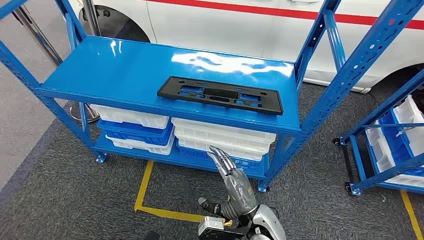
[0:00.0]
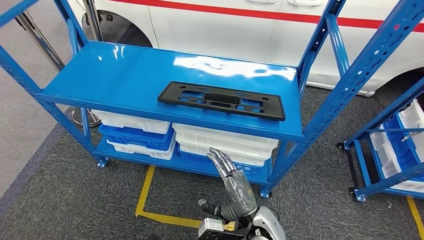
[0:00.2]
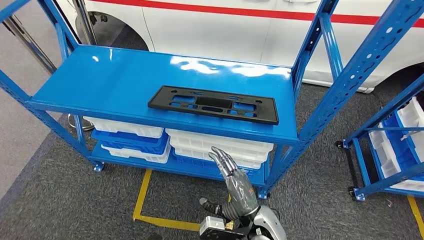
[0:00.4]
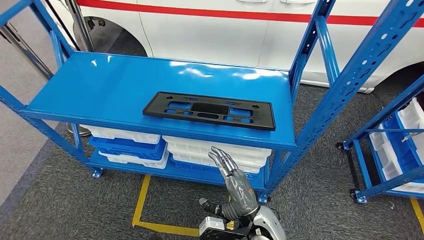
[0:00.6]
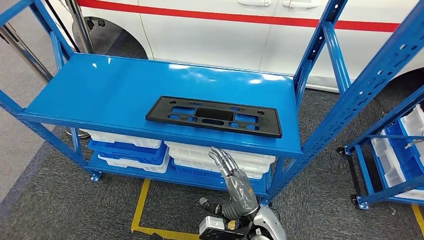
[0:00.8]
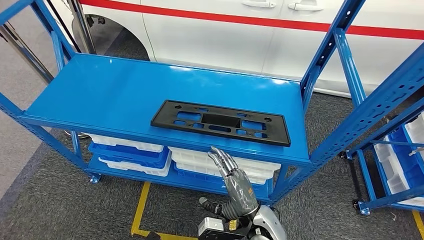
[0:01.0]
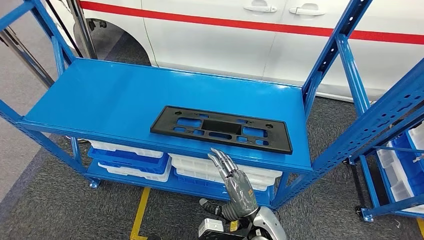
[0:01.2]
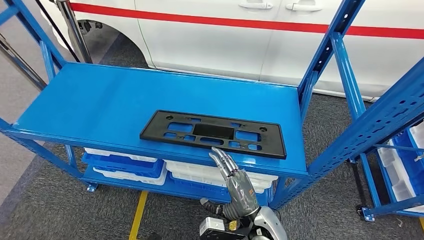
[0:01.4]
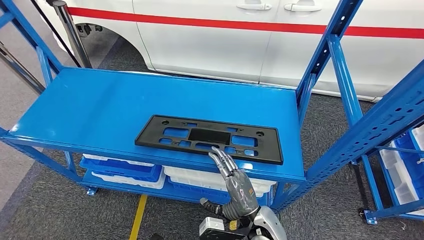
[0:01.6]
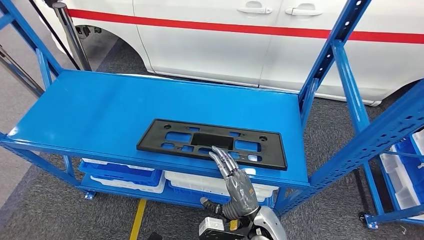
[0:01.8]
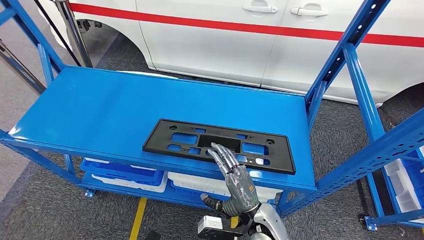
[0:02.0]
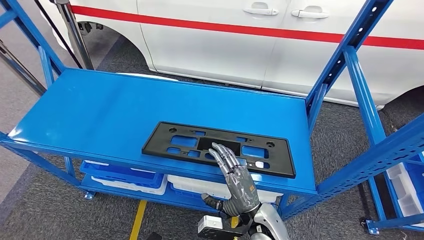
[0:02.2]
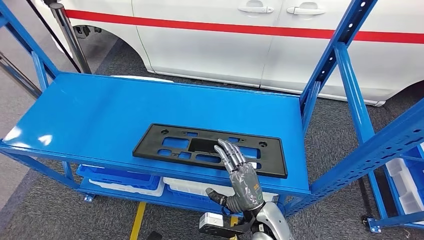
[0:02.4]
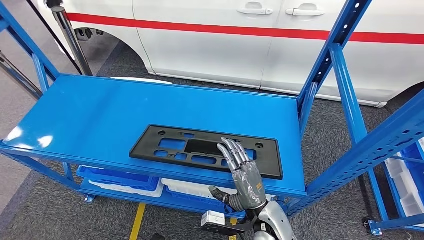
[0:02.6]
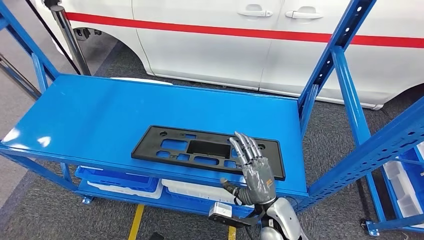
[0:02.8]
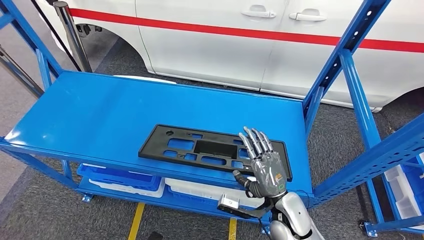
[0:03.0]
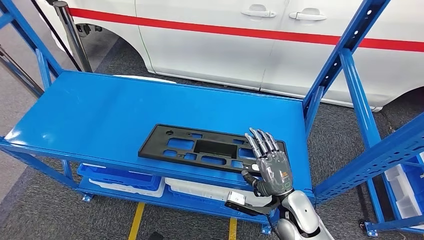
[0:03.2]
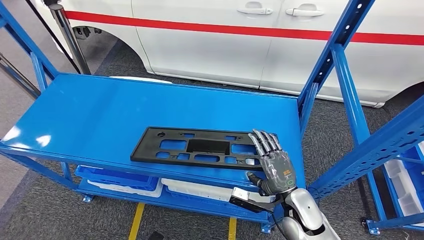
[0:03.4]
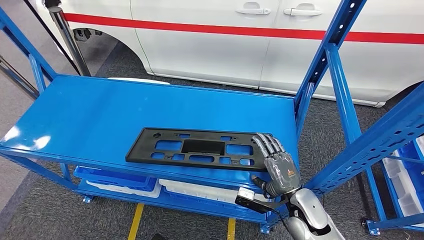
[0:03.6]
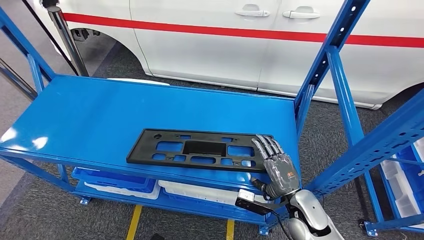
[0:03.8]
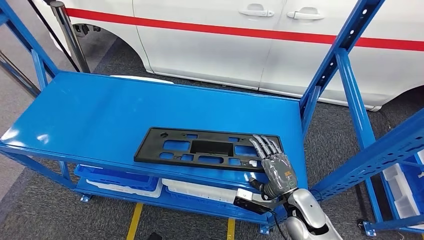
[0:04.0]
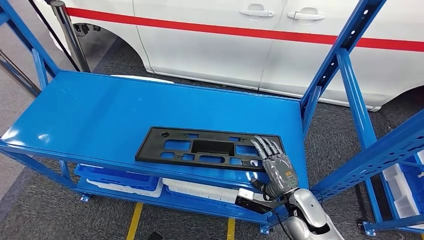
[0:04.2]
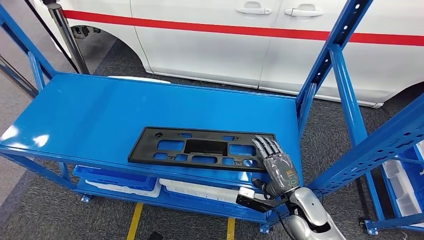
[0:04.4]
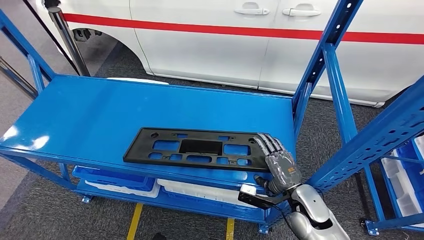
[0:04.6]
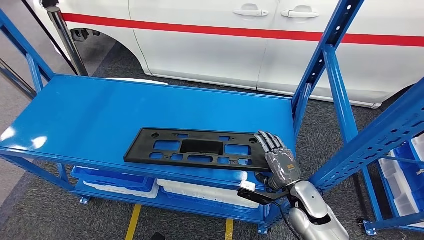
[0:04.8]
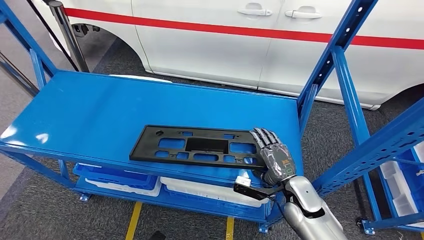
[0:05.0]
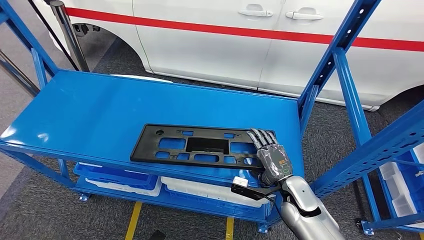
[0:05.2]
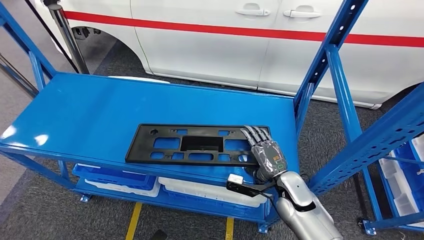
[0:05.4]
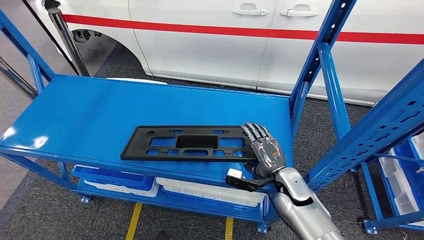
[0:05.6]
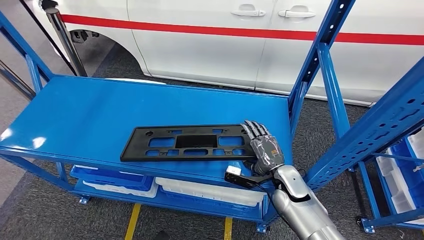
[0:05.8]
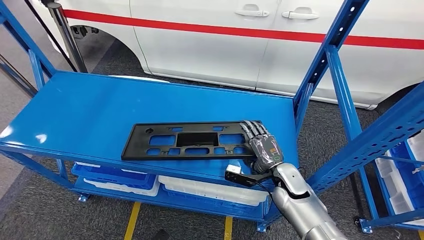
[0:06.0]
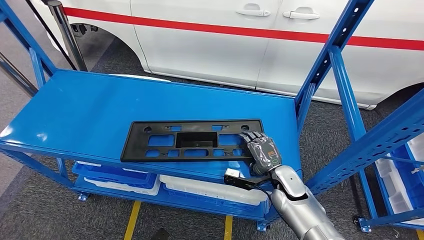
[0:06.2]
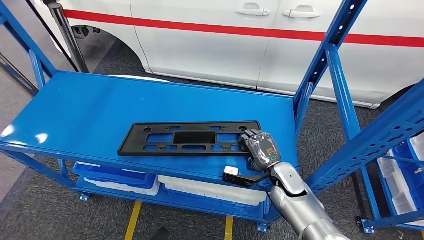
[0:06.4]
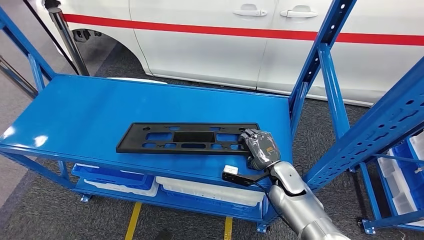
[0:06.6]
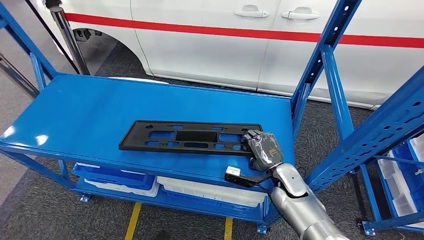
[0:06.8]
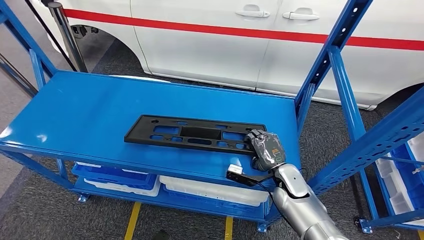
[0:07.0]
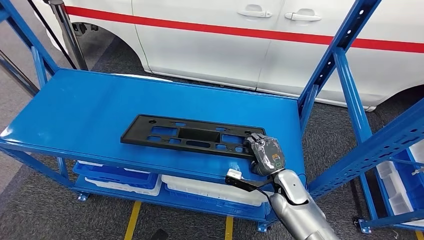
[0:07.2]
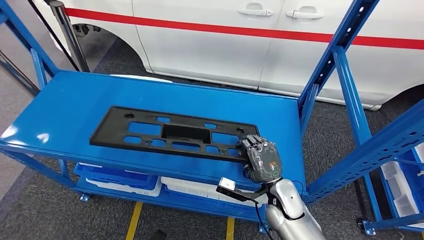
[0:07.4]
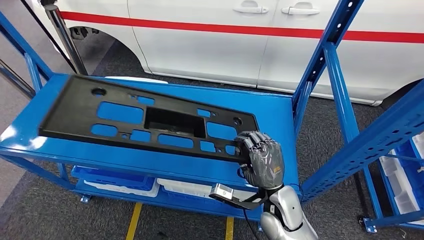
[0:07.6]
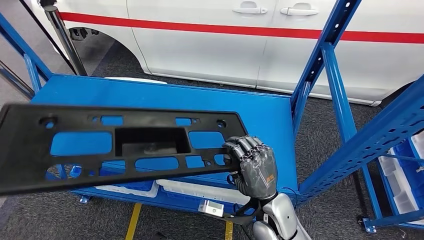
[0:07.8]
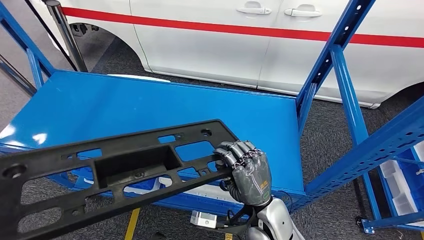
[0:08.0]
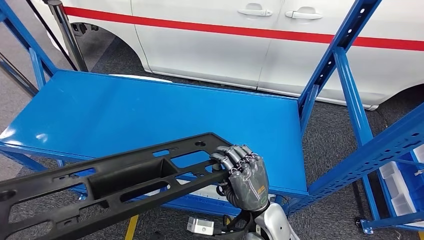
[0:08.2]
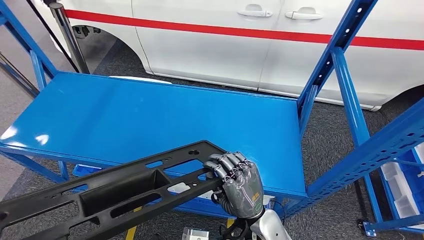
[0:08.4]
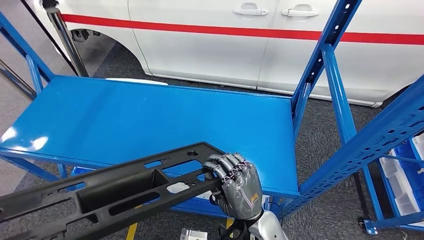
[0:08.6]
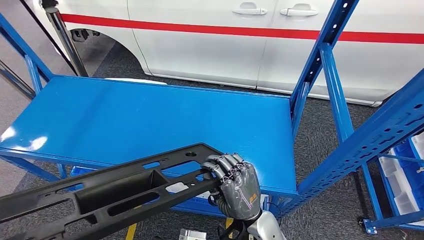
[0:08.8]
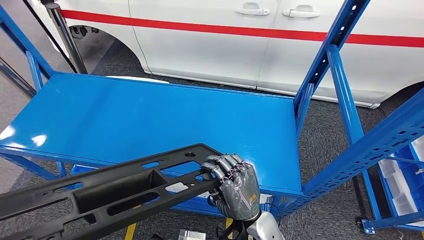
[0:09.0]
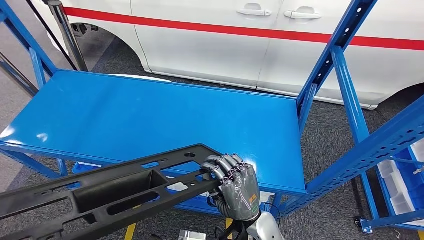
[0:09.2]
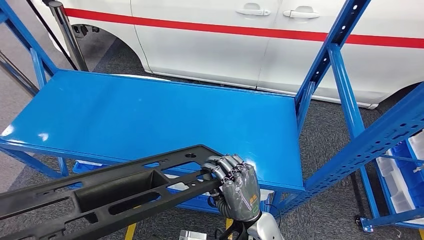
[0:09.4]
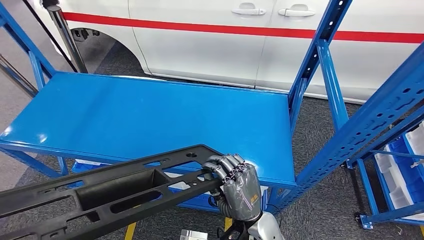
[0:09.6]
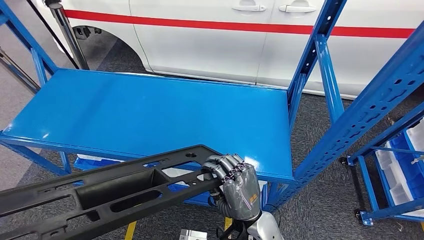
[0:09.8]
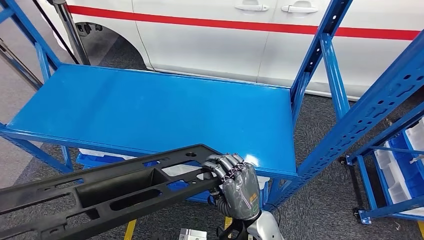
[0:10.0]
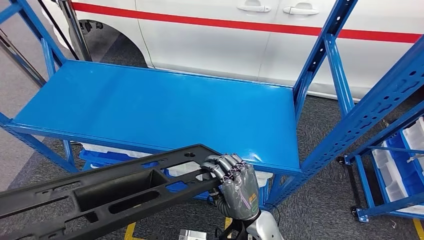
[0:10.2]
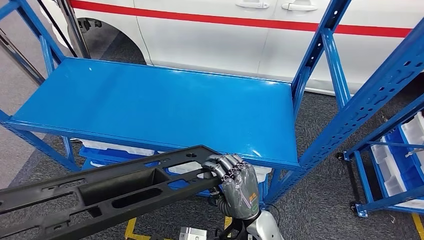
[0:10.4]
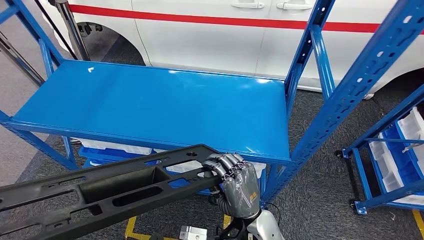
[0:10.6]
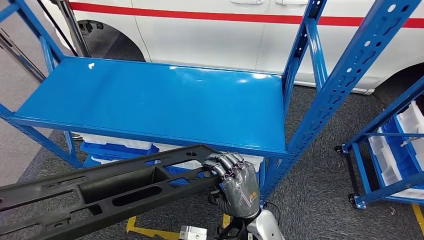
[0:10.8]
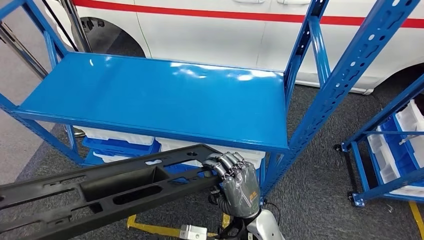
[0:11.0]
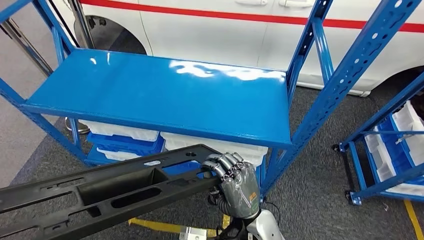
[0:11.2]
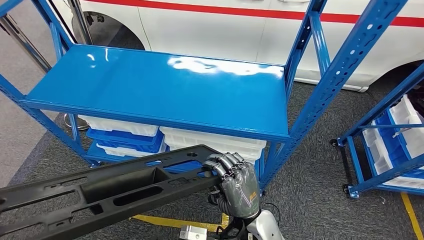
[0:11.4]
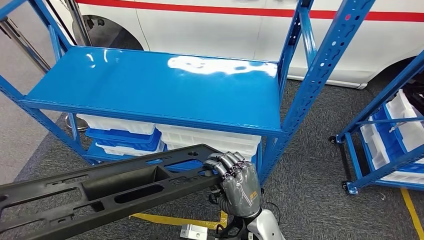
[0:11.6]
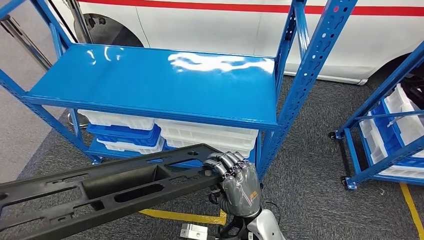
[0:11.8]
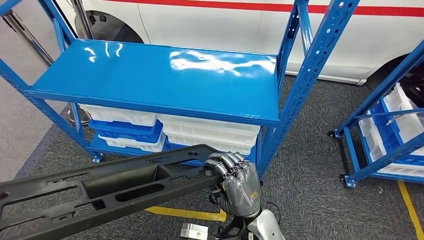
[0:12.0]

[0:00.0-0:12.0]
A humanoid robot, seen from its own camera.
Step, 0:00.0 to 0:11.8: Pick up the large material from the shelf.

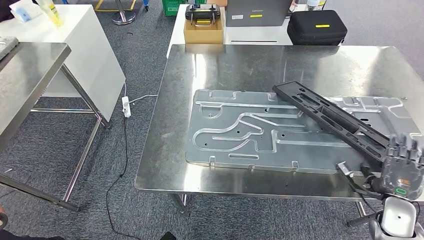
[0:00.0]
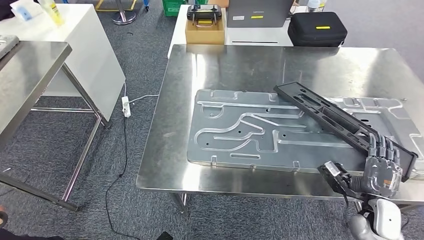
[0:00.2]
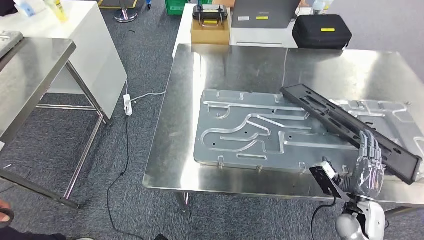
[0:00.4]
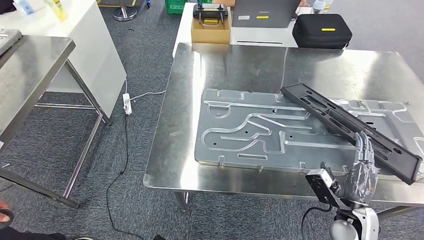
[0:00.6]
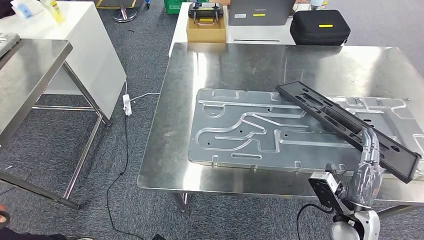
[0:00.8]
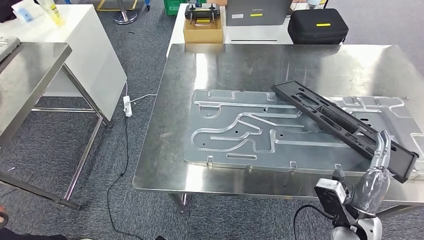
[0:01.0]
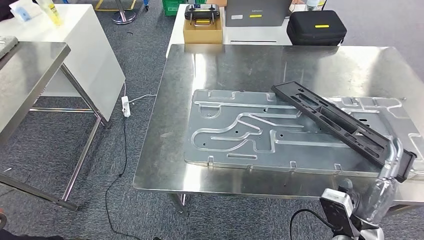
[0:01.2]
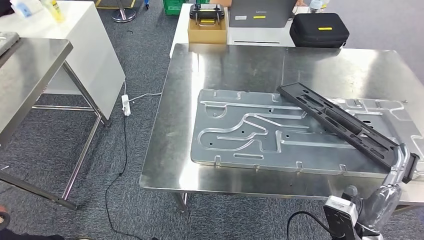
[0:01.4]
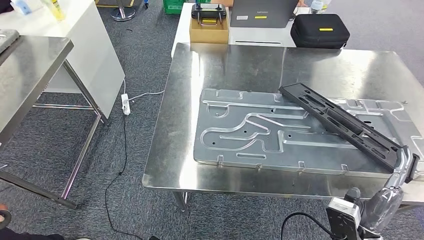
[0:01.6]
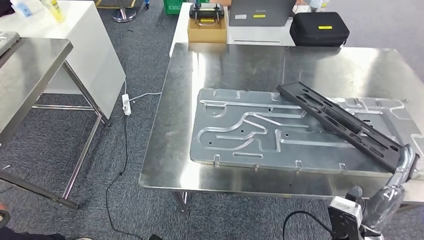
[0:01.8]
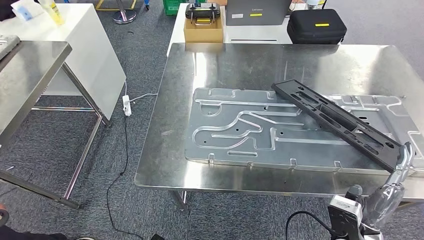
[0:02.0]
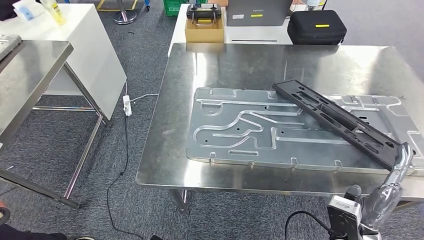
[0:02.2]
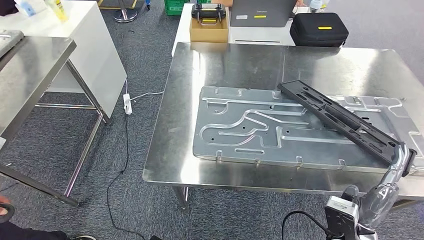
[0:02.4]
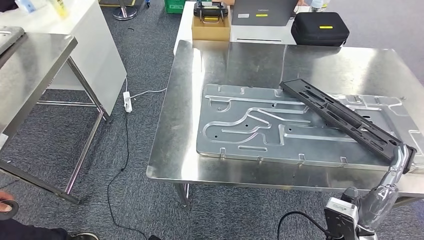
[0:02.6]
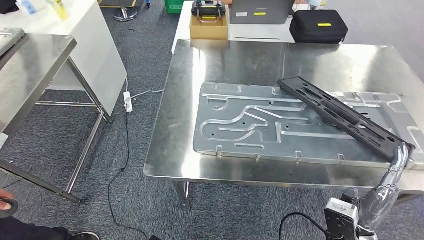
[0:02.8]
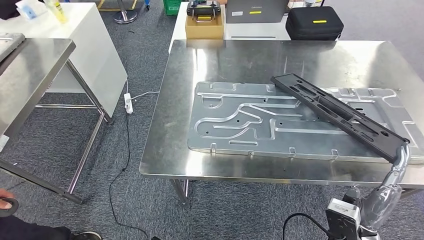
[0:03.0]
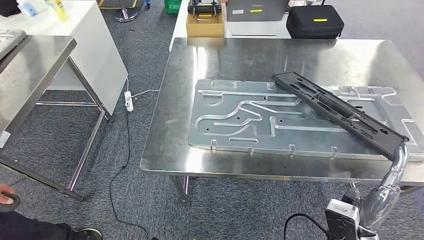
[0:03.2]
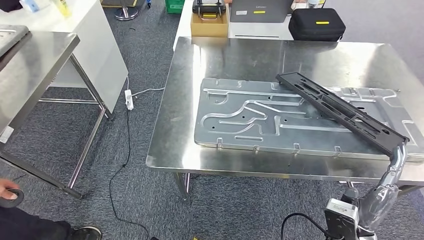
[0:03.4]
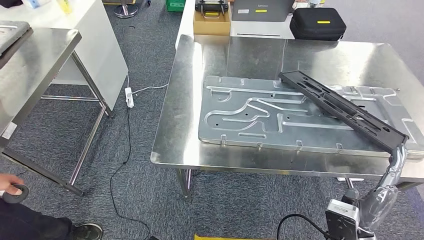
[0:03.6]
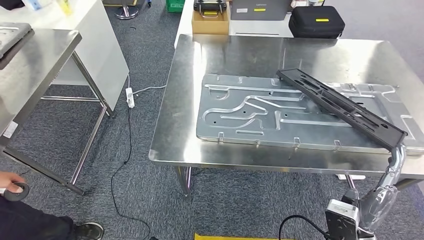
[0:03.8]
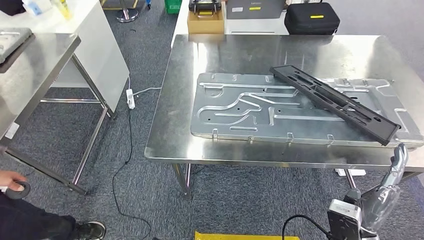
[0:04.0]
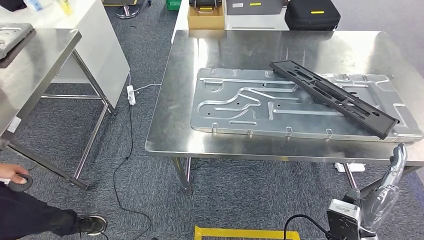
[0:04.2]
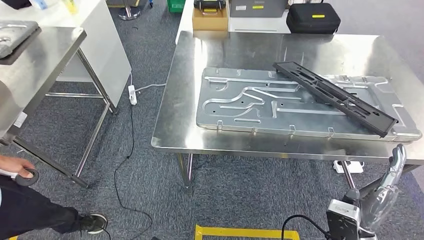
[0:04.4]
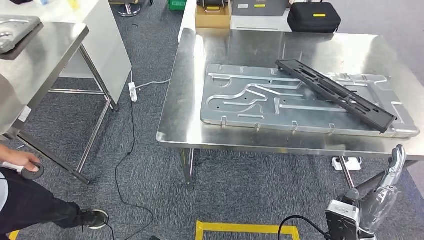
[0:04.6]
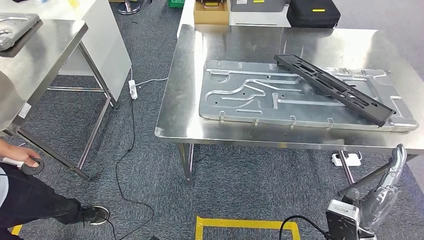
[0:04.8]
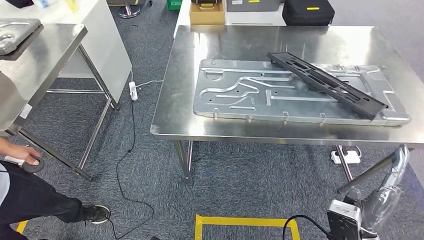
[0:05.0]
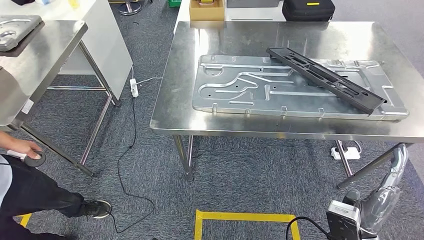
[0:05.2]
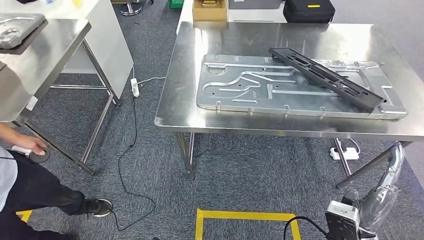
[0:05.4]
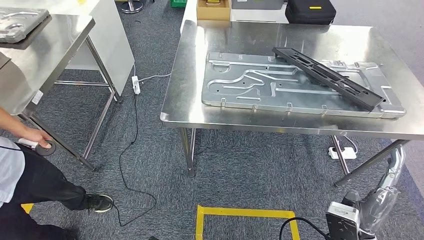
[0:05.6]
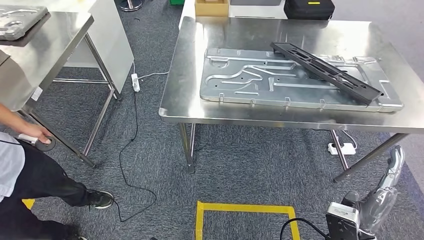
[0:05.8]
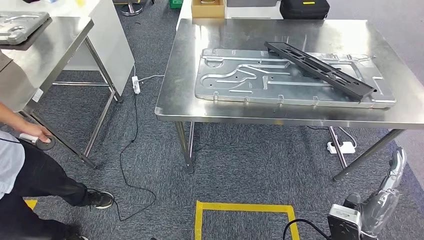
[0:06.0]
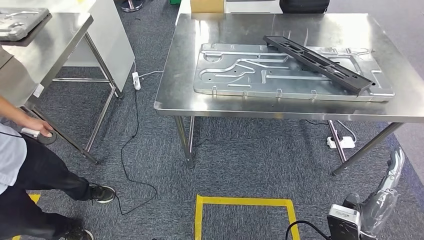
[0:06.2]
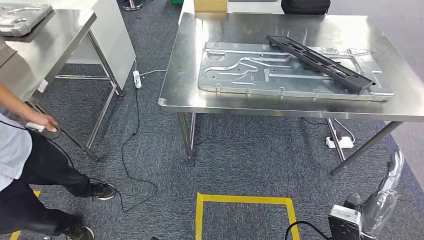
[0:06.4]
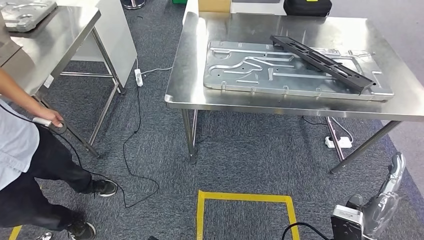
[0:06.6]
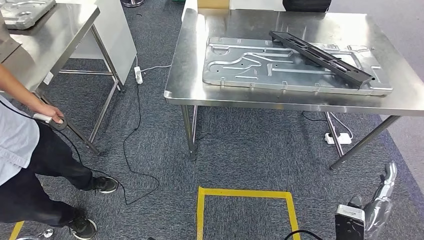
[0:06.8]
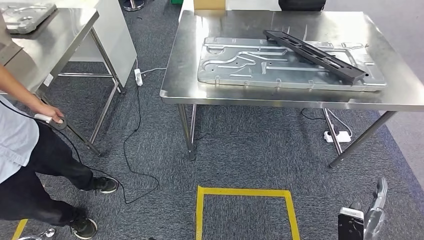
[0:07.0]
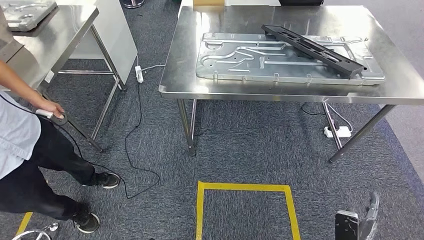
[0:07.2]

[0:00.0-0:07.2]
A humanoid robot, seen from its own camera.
Step, 0:00.0 to 0:04.2: Insert the large material into the corresponding slot on the workbench.
0:00.0 to 0:01.4: The right hand goes approximately 15 cm to the left and backward.